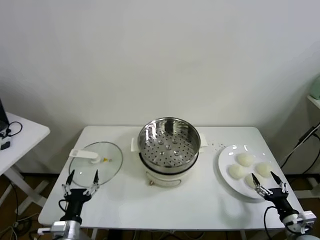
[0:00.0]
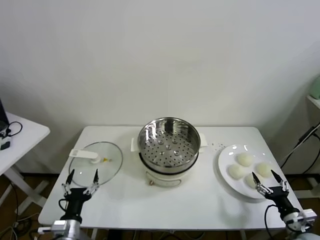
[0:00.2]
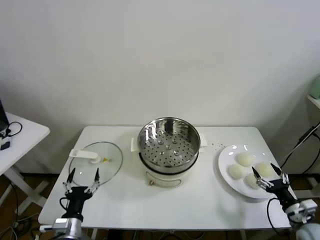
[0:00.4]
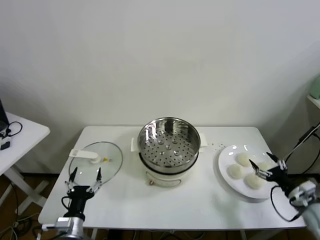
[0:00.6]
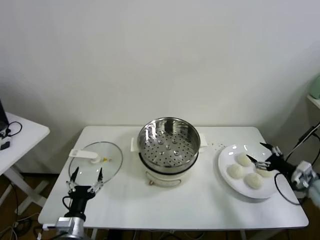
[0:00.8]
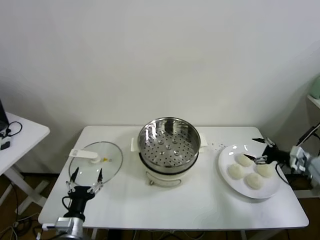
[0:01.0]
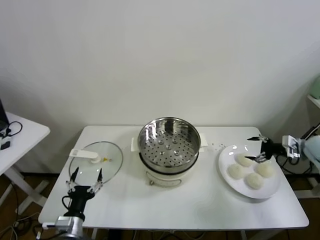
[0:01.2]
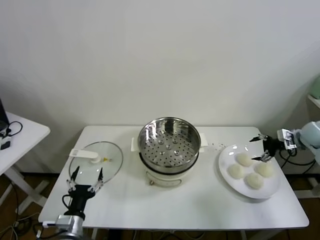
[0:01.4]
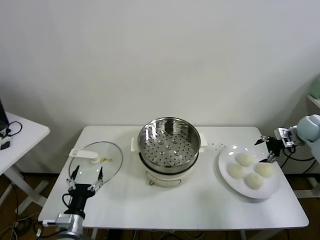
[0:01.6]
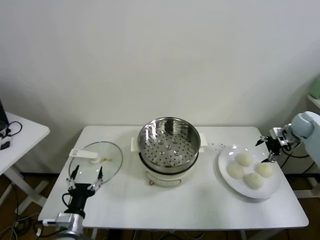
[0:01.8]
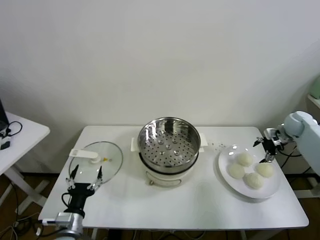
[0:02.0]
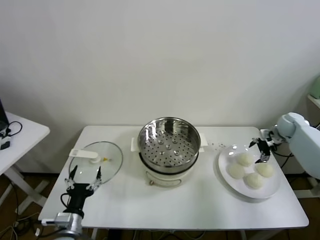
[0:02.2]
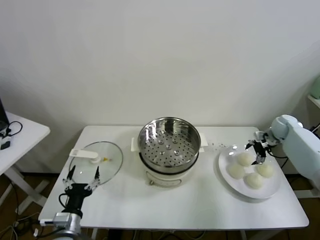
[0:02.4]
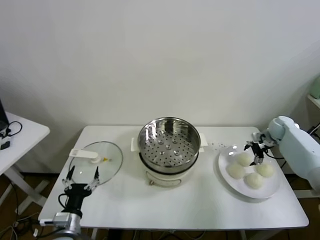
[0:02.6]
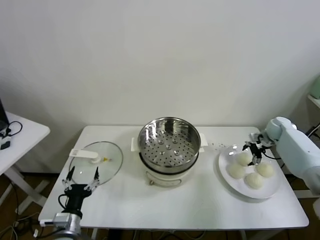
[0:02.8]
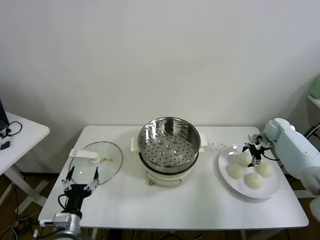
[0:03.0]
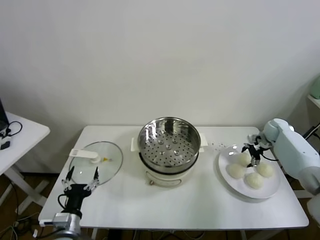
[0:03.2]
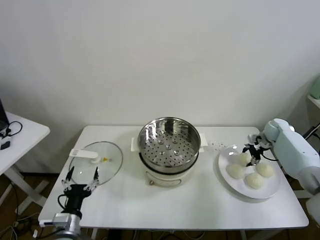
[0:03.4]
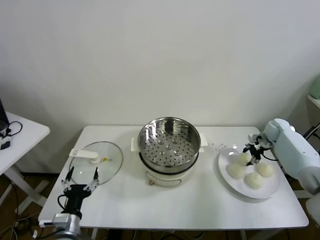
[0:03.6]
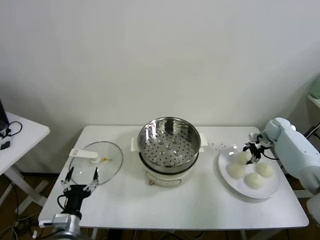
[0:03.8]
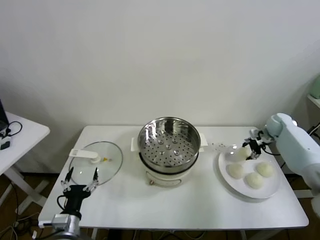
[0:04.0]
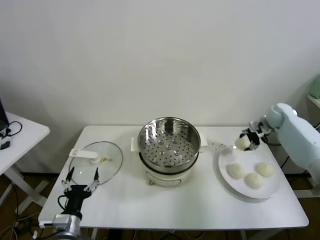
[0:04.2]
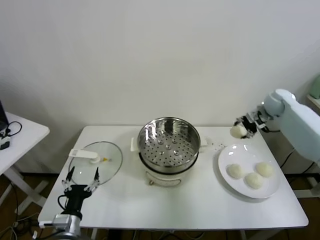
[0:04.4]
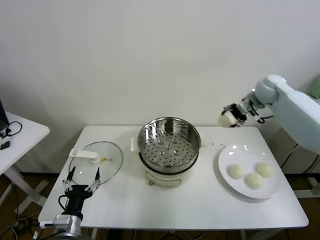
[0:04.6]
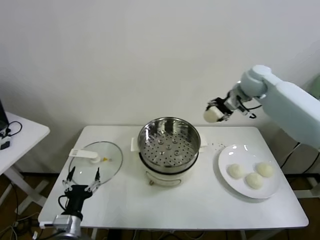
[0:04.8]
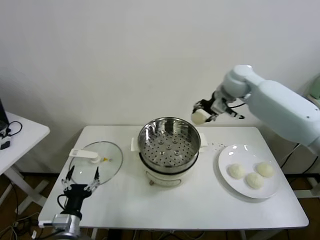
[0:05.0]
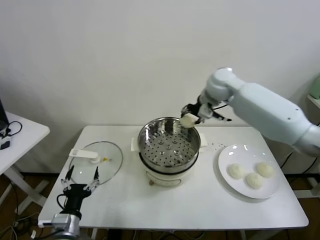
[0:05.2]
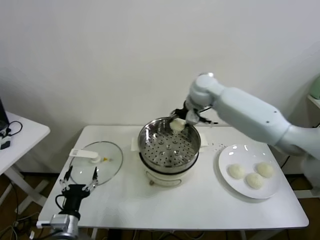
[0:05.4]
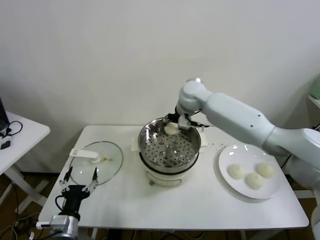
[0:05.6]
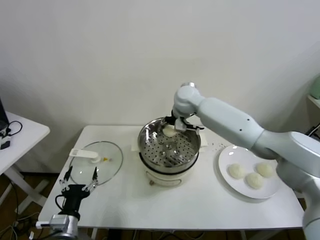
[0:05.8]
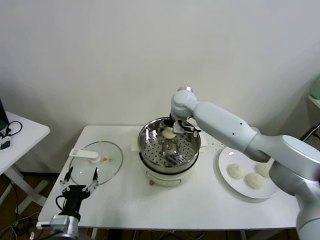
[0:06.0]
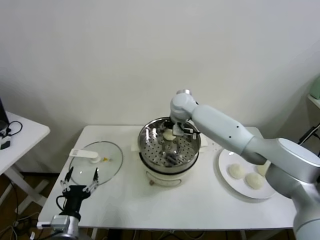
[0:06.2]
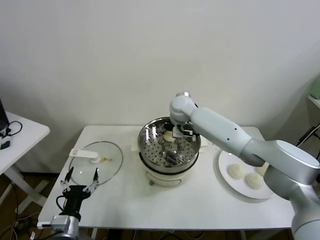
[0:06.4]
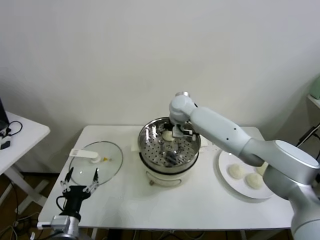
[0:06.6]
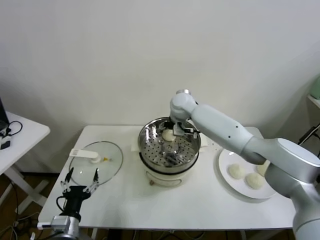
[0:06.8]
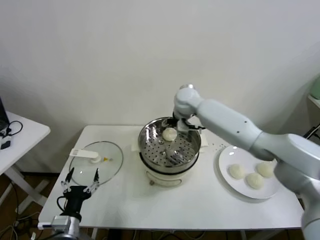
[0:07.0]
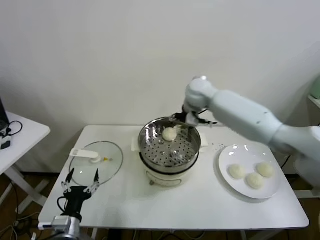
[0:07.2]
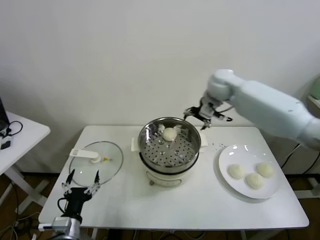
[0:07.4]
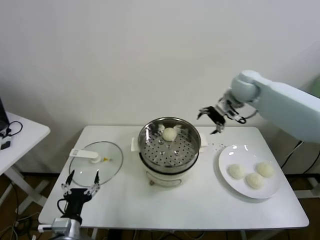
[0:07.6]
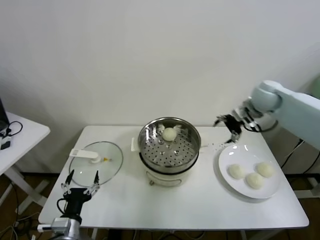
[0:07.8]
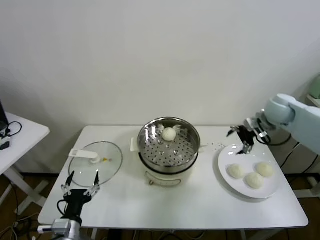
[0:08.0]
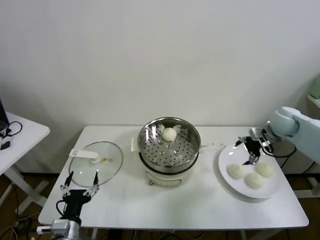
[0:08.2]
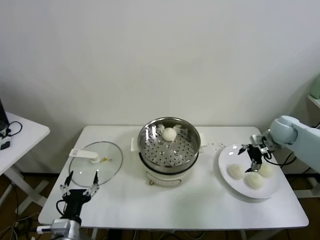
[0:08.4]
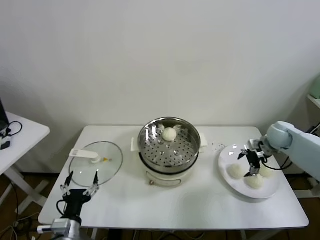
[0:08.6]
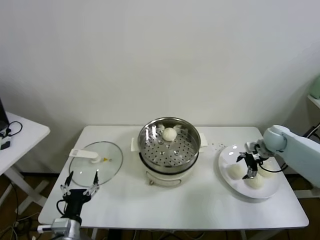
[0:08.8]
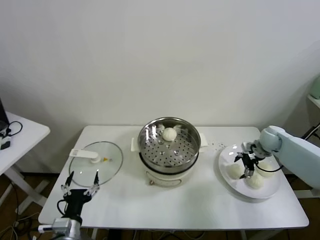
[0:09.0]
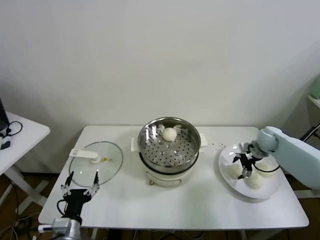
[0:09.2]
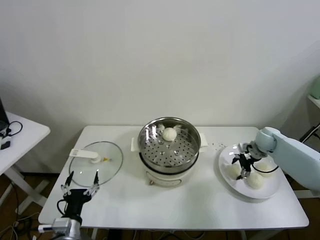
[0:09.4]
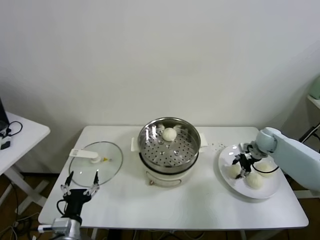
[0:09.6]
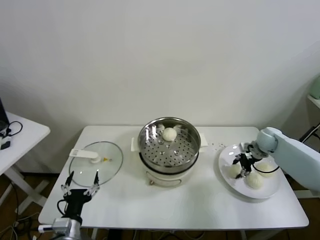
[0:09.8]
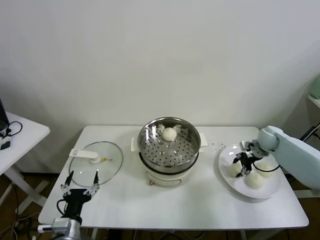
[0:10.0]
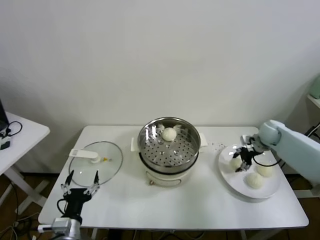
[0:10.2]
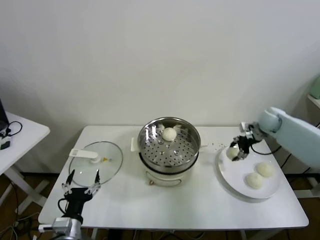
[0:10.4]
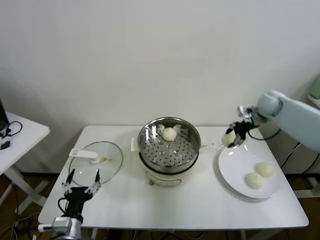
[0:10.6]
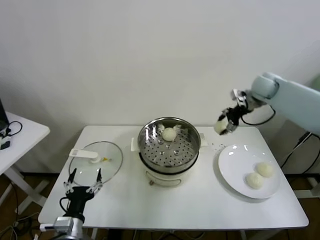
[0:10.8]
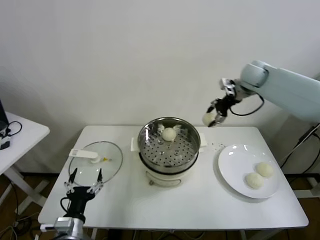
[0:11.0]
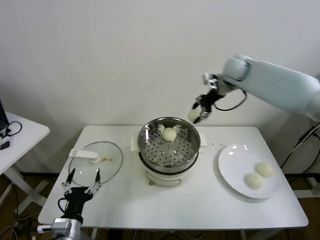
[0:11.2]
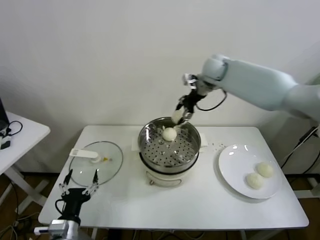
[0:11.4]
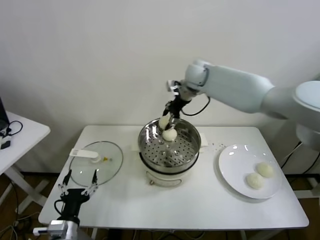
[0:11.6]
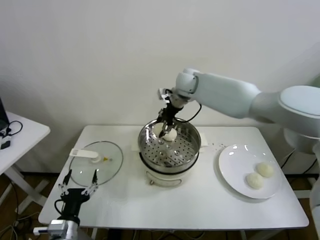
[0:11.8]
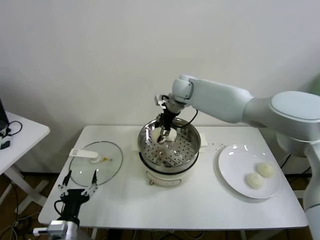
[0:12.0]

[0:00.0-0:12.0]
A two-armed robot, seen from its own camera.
Task of the whole recording: take steamed baozi put them in steamer.
Step, 0:00.0 to 0:03.2: Grasp the baozi in the plate with right gripper.
Step, 0:03.4 to 0:06.6: Place the baozi on the steamer with right gripper.
Step, 0:06.8 to 0:09.4: Grasp the baozi in the plate with right gripper.
0:01.6 to 0:03.0: The right gripper shifts approximately 10 cm downward, to the left and forward.
0:03.0 to 0:04.4: The right gripper travels upward and to the left by roughly 20 cm, and closes up.
0:04.4 to 0:06.0: The right gripper moves to the left, some 30 cm.
0:06.0 to 0:07.6: The right gripper heads to the right, covering approximately 25 cm, and opens its fingers.
0:07.6 to 0:09.0: The right gripper shifts some 25 cm downward and to the right.
0:09.0 to 0:10.4: The right gripper is displaced upward by about 10 cm, and closes up.
0:10.4 to 0:12.0: The right gripper goes some 35 cm to the left.

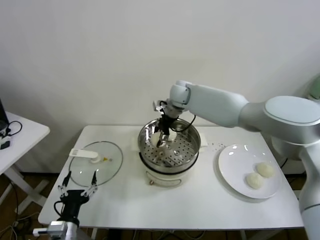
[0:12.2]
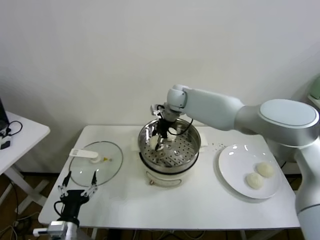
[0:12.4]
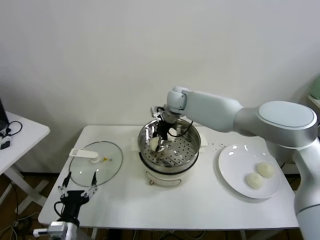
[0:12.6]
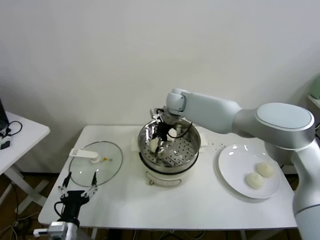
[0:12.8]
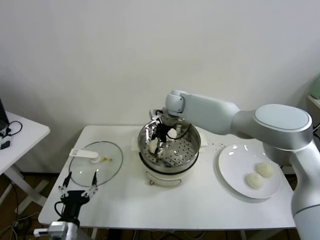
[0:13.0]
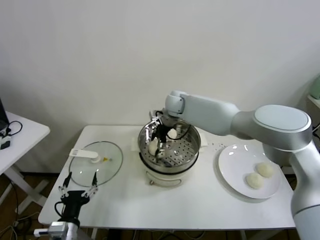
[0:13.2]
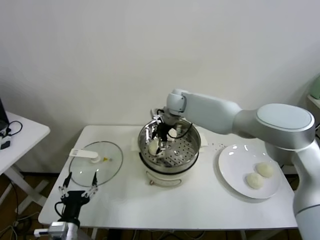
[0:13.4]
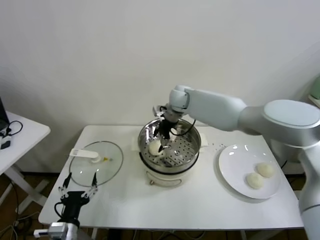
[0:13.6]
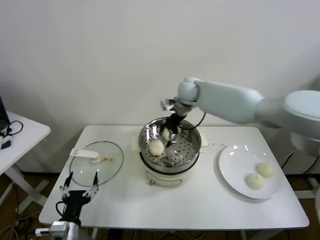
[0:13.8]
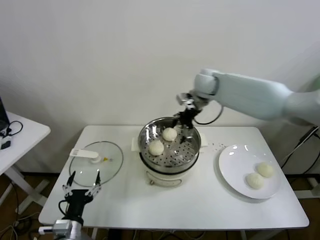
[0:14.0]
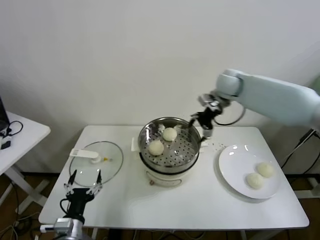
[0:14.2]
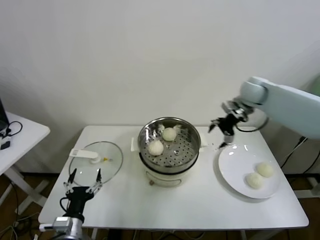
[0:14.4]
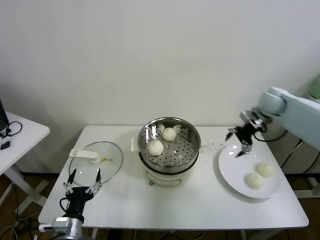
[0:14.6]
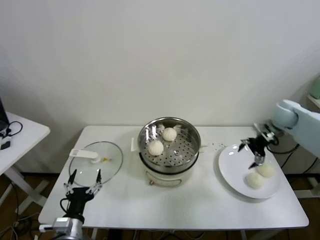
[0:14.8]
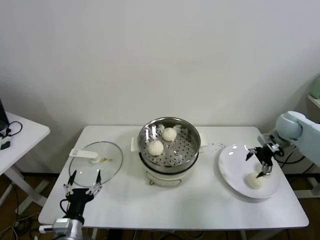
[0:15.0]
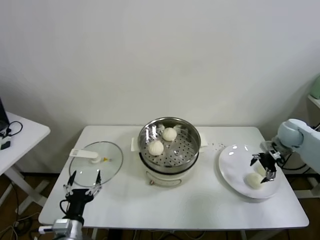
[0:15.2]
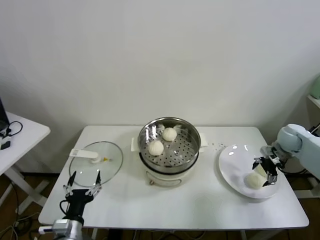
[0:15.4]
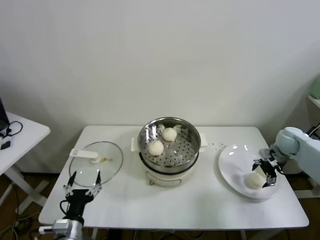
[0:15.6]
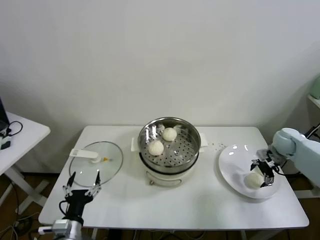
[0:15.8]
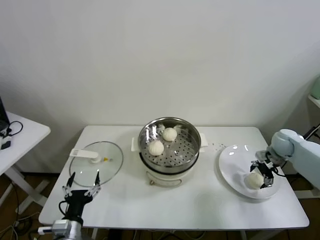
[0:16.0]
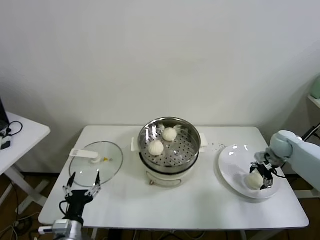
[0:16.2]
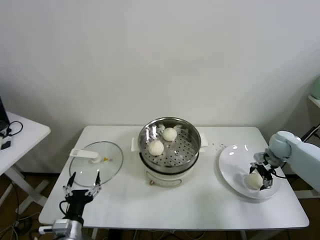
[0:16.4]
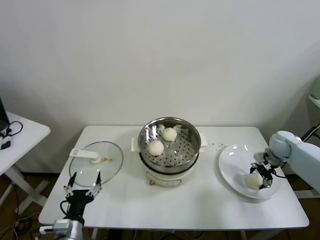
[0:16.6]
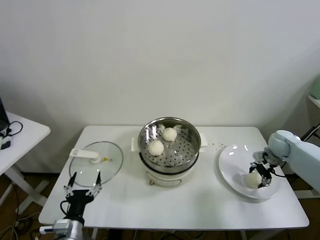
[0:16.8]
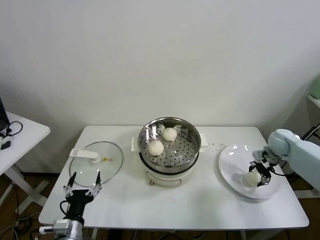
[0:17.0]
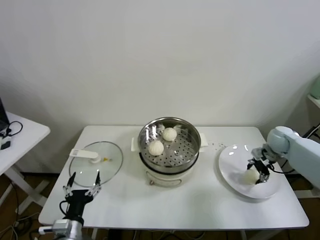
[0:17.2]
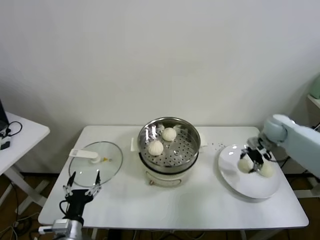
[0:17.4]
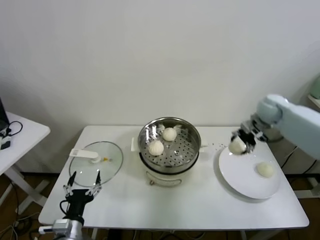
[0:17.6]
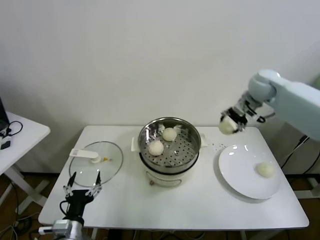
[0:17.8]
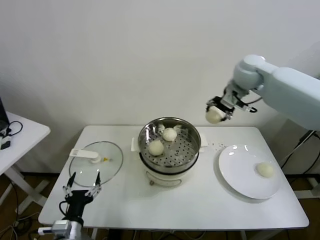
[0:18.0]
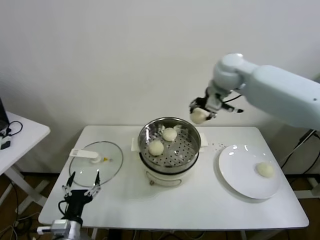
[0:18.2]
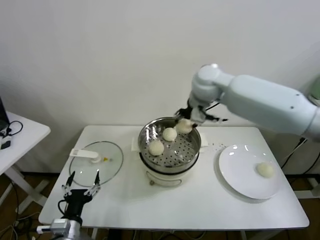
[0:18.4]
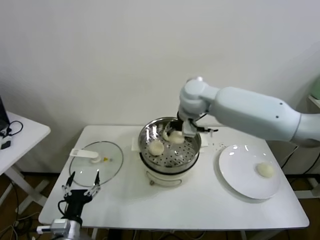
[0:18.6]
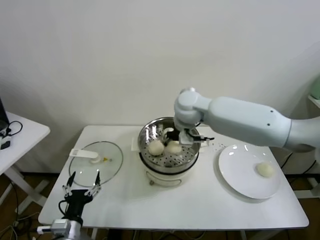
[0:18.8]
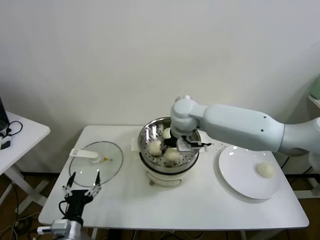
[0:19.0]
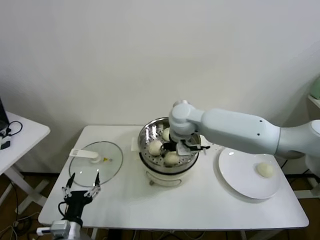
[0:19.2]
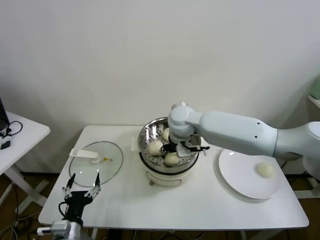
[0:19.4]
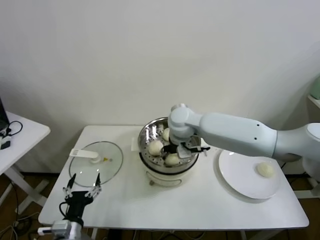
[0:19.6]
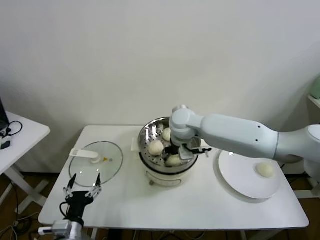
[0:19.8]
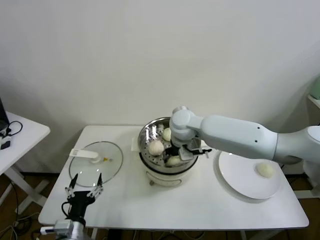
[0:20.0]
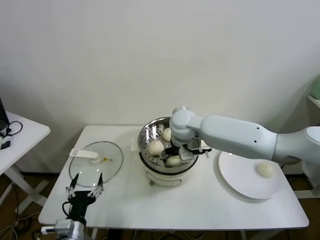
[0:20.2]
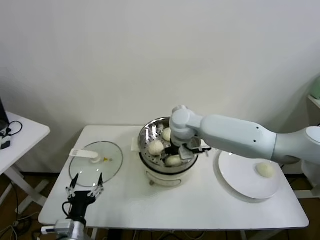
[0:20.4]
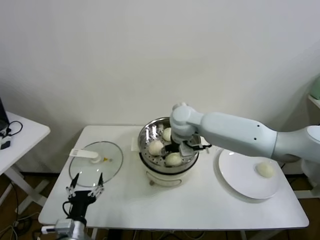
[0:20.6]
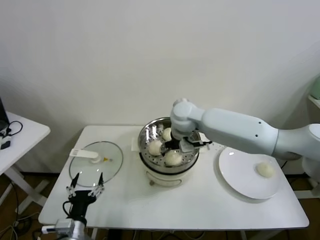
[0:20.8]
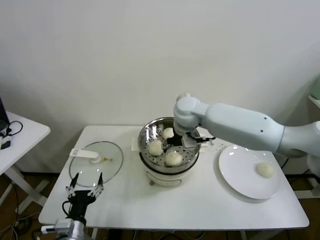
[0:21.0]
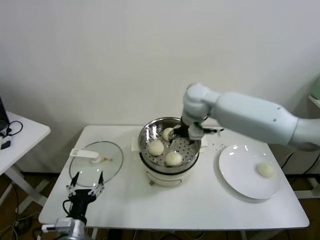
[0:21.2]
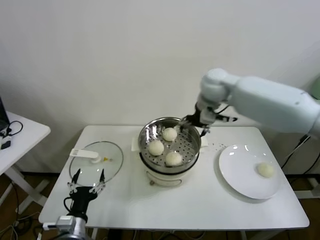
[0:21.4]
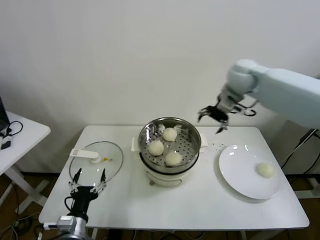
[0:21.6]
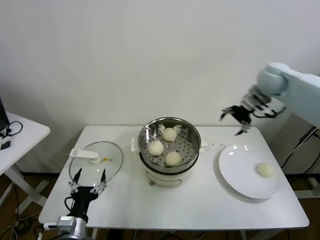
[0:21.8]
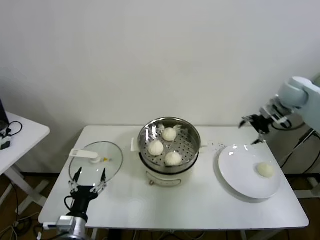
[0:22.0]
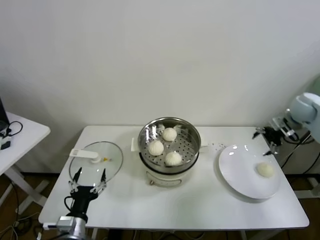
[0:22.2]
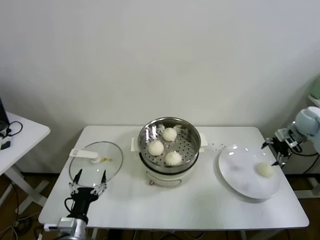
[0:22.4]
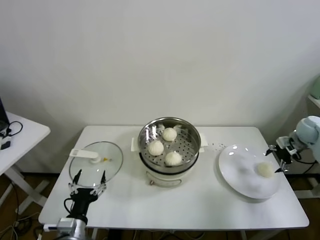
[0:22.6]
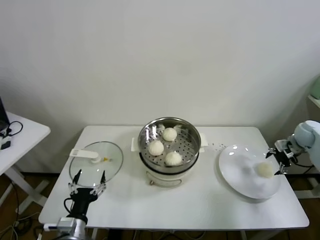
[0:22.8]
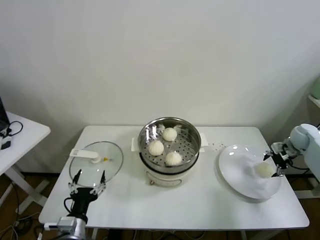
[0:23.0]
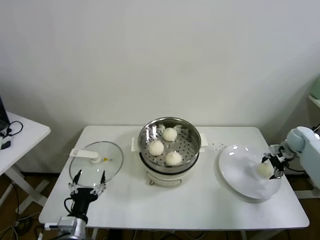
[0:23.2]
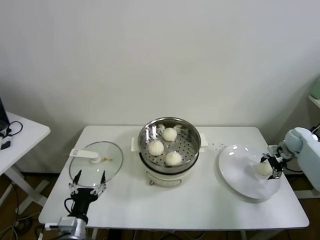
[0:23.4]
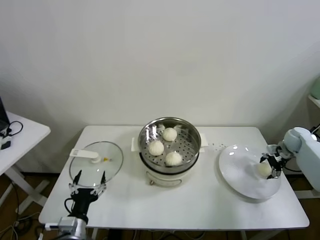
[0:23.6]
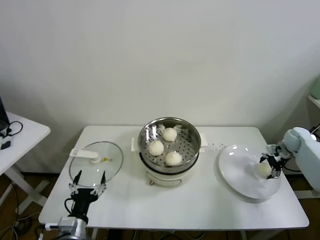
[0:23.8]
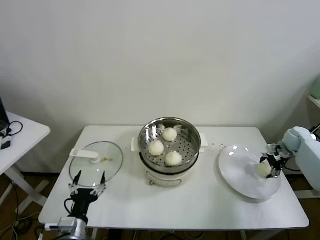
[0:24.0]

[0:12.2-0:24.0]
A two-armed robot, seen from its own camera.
Task of the whole recording: take steamed baozi put them in steamer.
Step, 0:13.4 to 0:16.6: Grasp the baozi in the plate with right gripper.
Step, 0:16.8 to 0:20.4: Place the baozi on the steamer with right gripper.
Step, 0:20.6 to 0:24.0: Grasp the baozi in the plate with right gripper.
0:12.2 to 0:13.6: The right gripper opens its fingers.
0:13.6 to 0:15.2: The right gripper goes roughly 40 cm to the right.
0:15.2 to 0:16.6: The right gripper moves downward, approximately 5 cm, and closes.
0:16.6 to 0:18.2: The right gripper heads to the left and upward, covering approximately 40 cm, and closes its fingers.
0:18.2 to 0:19.6: The right gripper moves downward and to the left, roughly 20 cm.
0:19.6 to 0:21.0: The right gripper opens.
0:21.0 to 0:22.6: The right gripper moves to the right, about 50 cm.
0:22.6 to 0:24.0: The right gripper goes roughly 5 cm downward.
